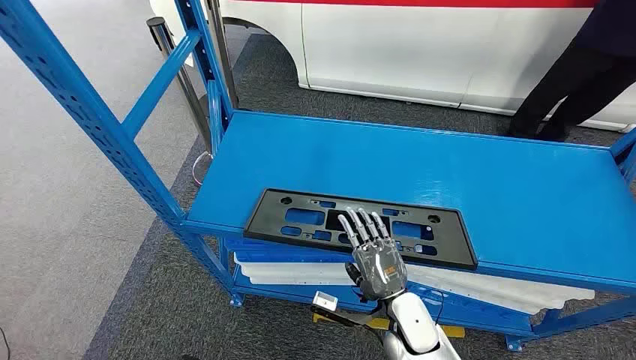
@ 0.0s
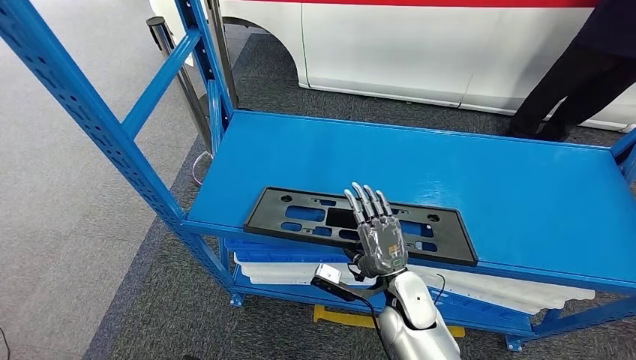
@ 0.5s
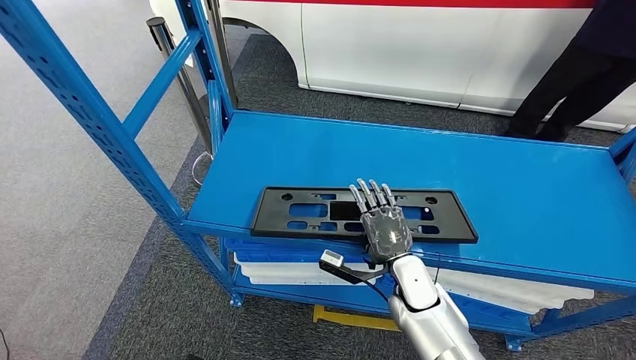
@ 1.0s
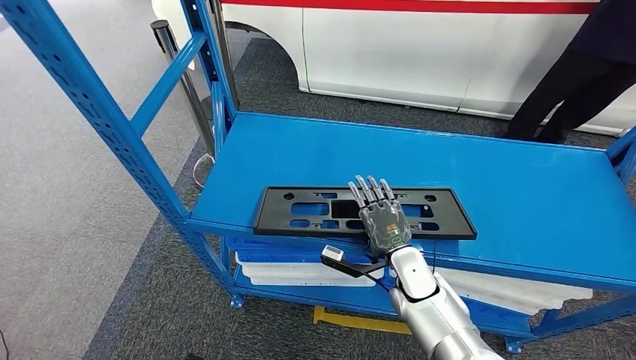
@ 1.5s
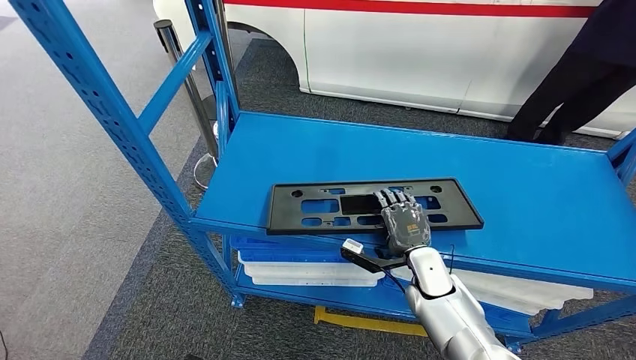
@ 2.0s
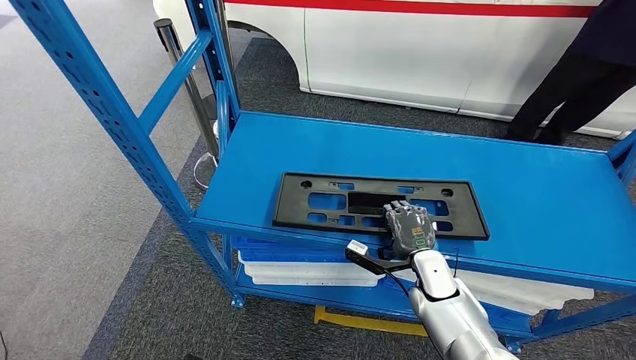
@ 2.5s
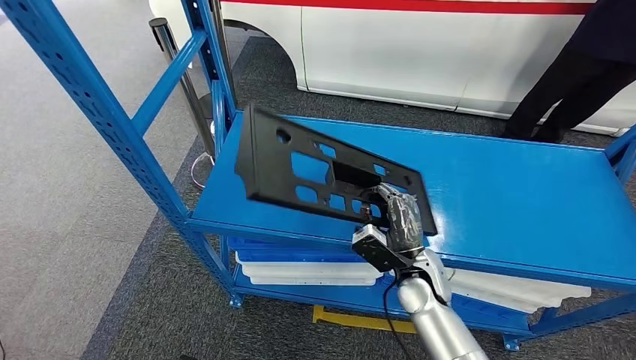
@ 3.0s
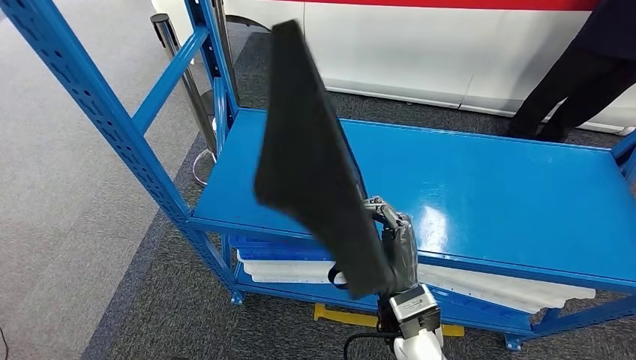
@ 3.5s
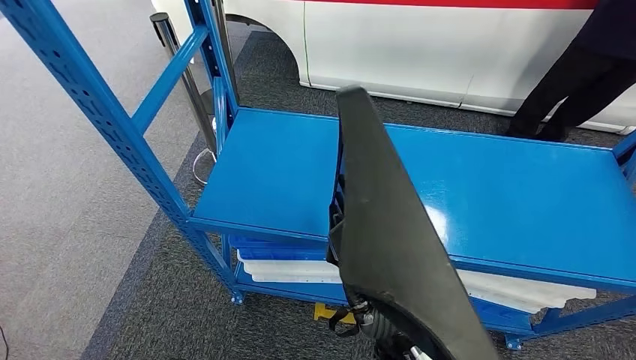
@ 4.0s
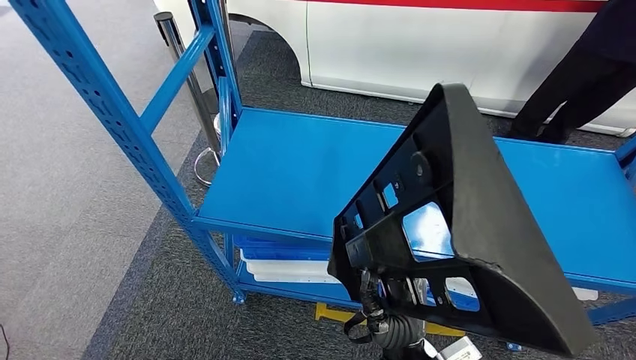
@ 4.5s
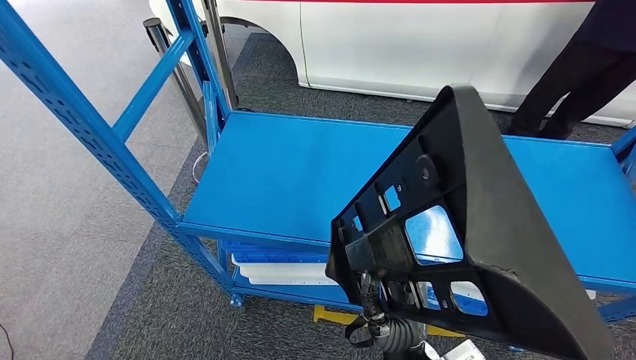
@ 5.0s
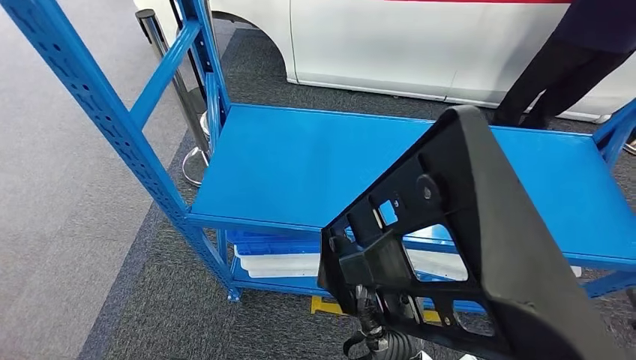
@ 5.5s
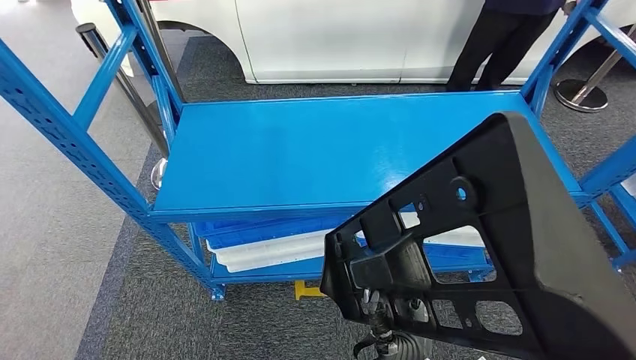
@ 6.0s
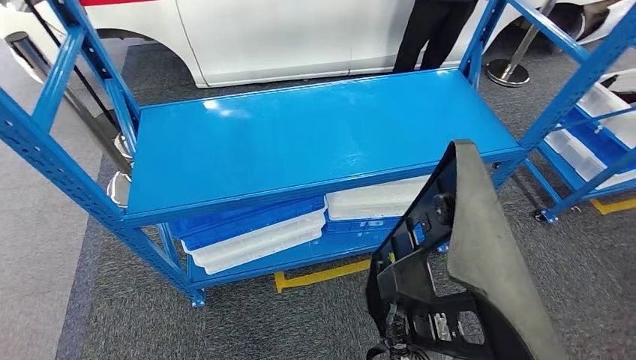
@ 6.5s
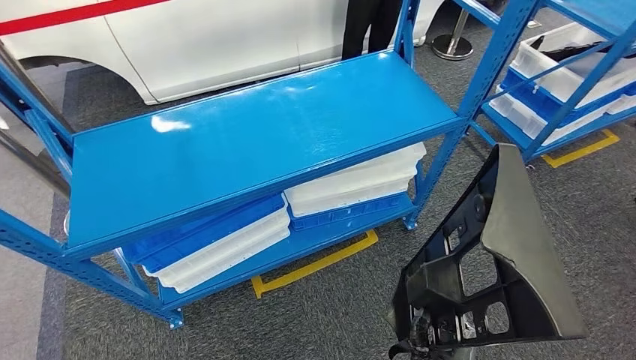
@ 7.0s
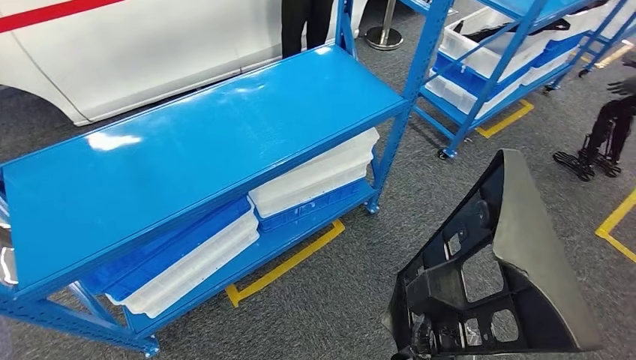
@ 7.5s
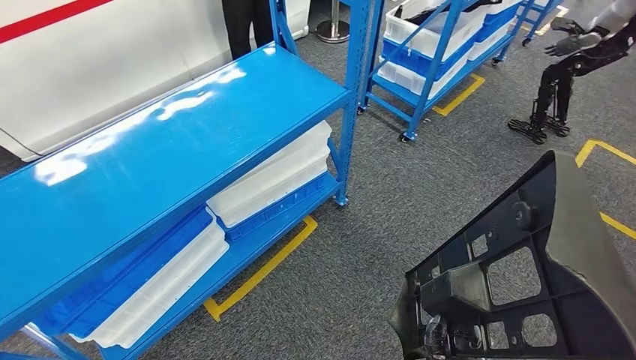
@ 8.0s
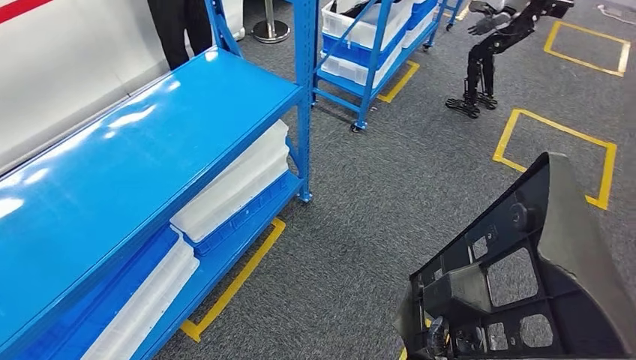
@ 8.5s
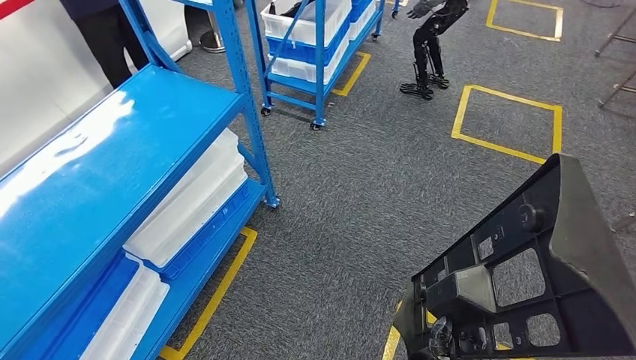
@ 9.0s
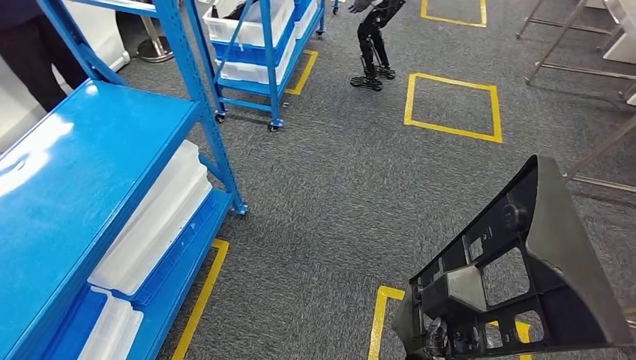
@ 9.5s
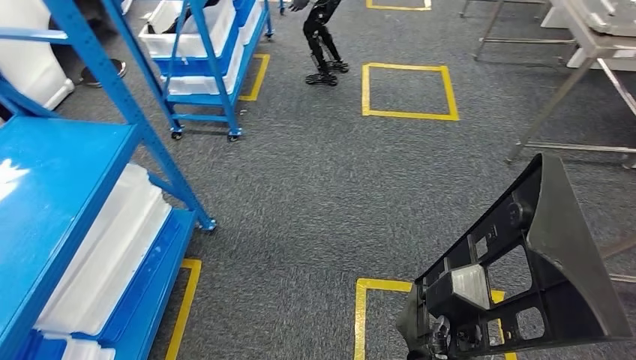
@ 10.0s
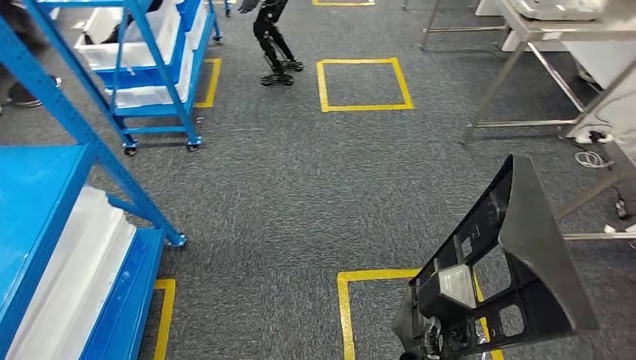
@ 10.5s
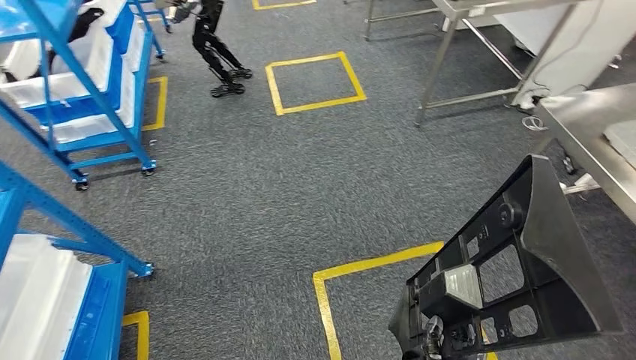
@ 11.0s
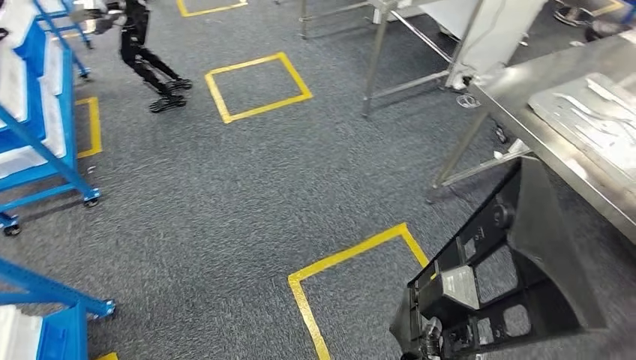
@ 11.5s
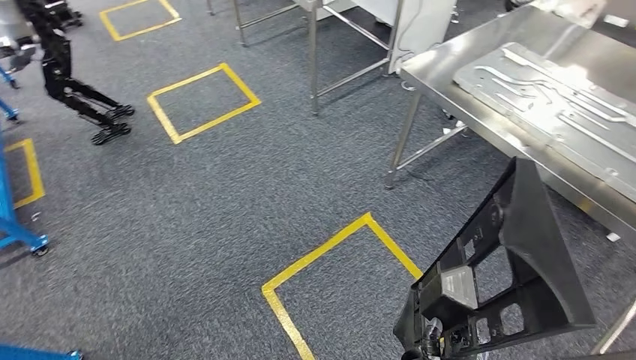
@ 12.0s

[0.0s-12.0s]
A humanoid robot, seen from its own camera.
Step, 0.0s to 5.0s: Pick up the large material from the shelf.

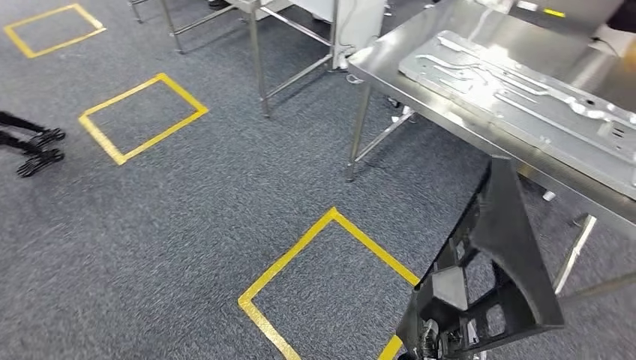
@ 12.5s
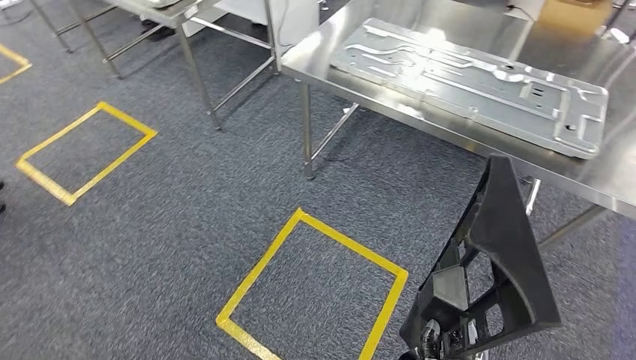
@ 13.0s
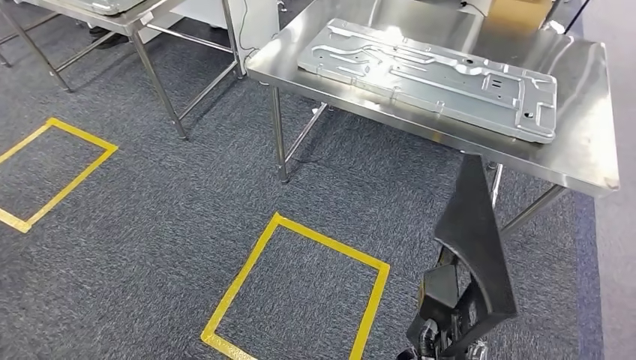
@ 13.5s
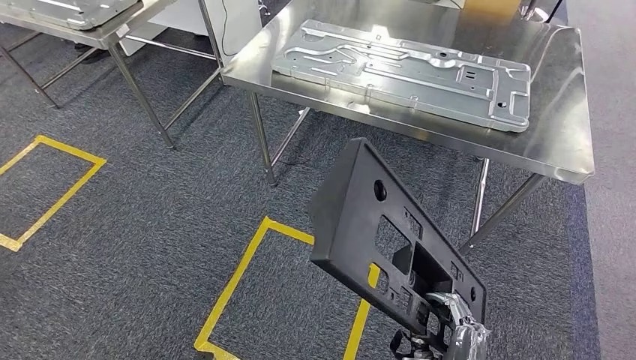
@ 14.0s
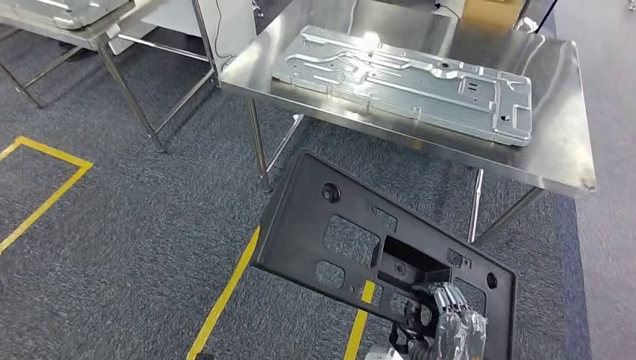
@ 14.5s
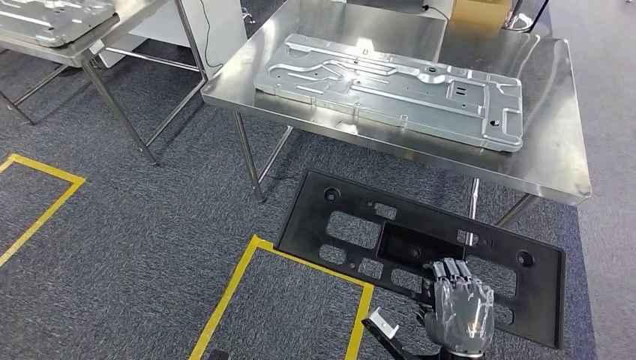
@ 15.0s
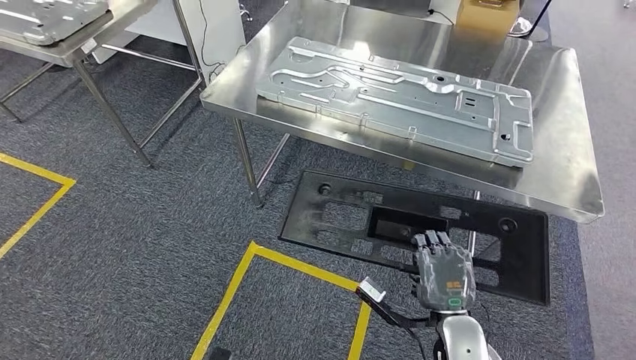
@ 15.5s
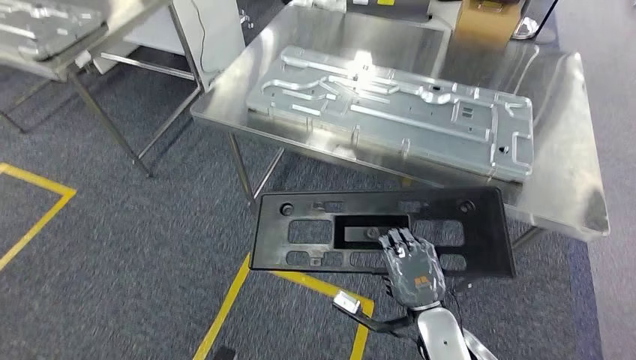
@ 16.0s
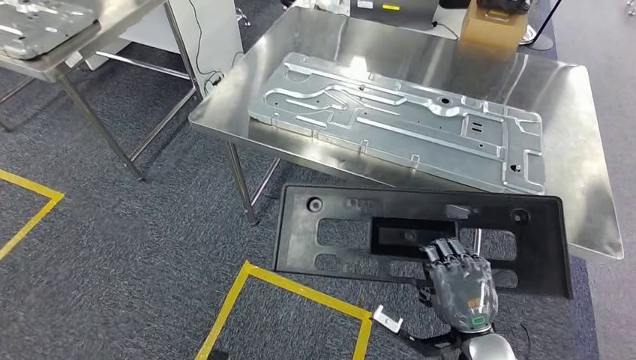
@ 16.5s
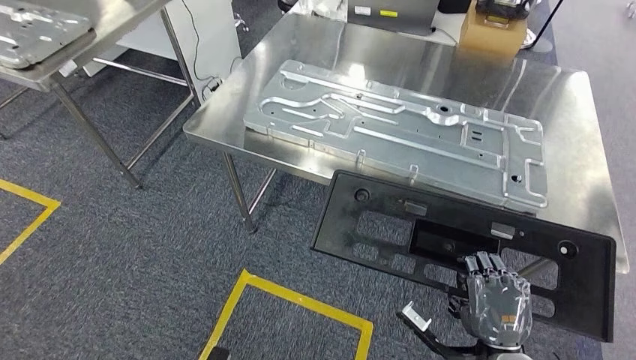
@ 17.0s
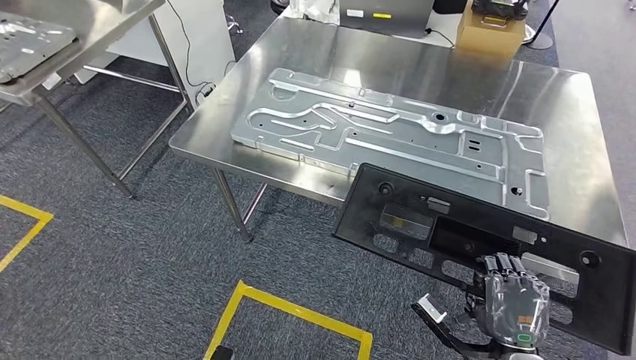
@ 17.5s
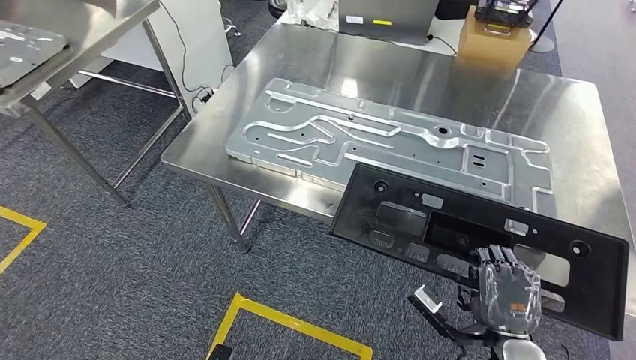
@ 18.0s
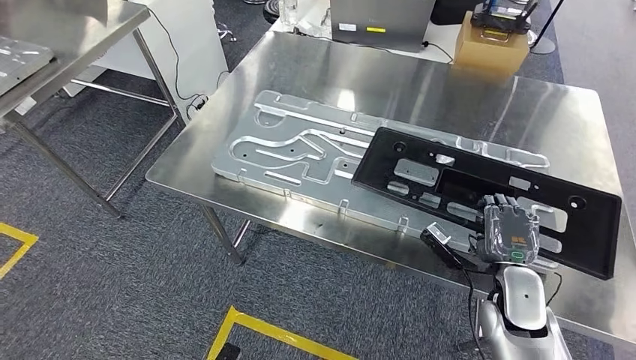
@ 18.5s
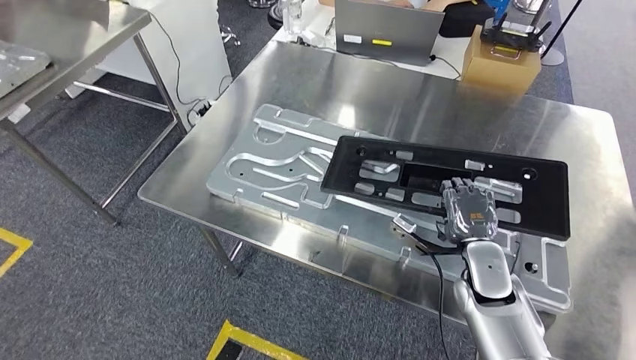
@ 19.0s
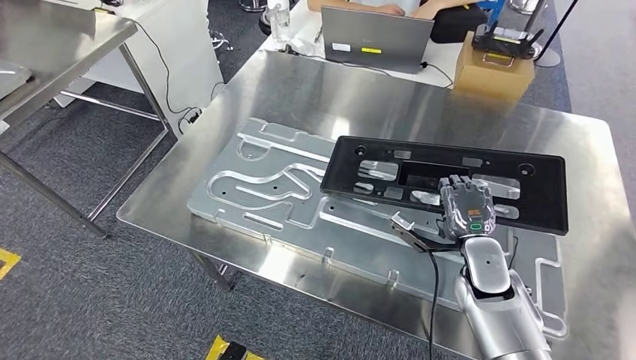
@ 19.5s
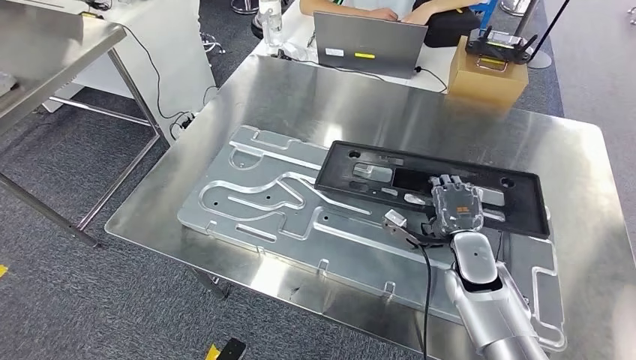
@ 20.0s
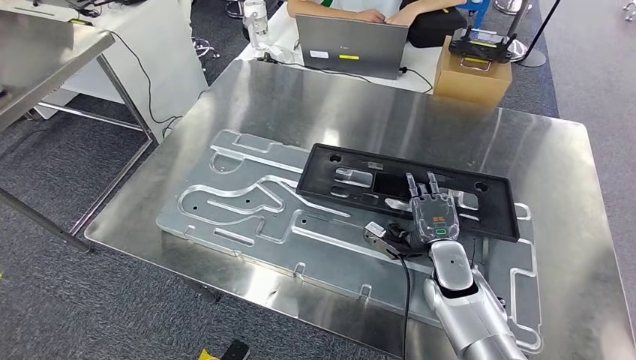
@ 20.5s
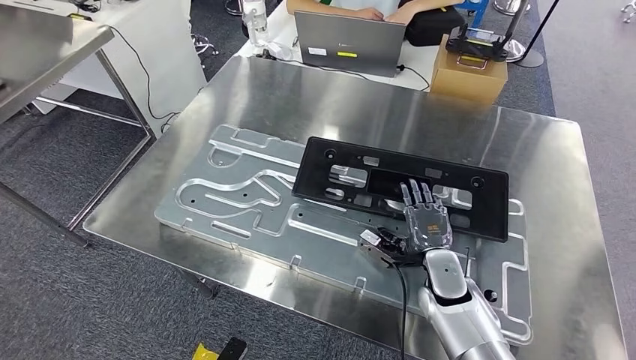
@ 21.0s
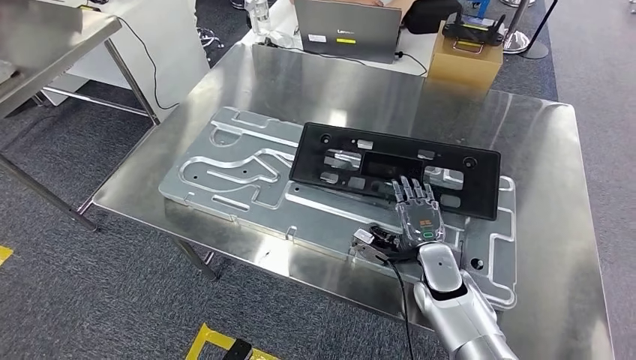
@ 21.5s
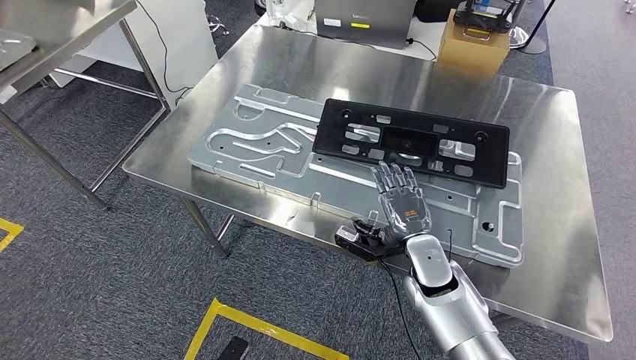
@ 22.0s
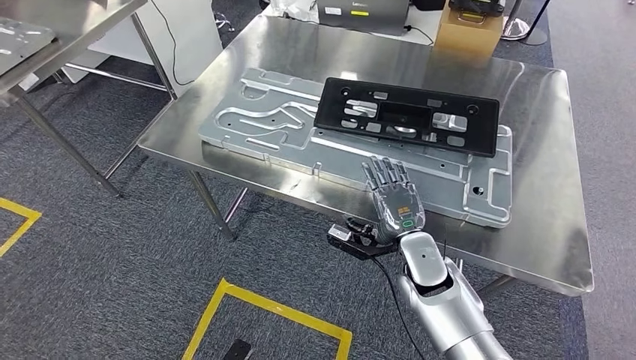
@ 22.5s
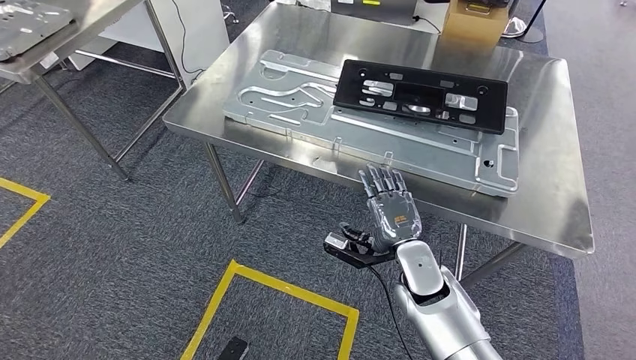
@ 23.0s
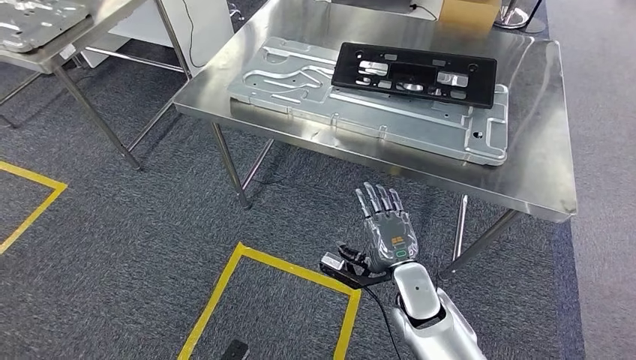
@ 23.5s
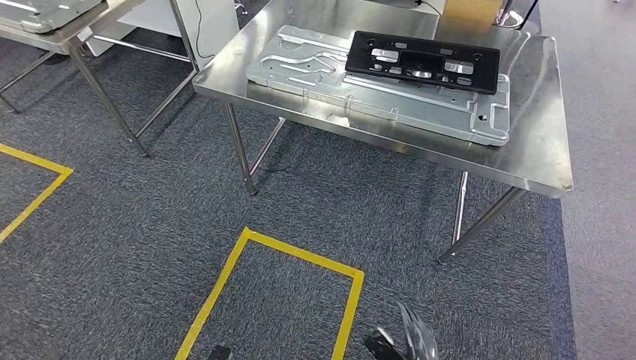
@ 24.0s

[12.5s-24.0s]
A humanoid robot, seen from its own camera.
Step, 12.5s to 16.5s: Move the large material to the workbench.
Step, 17.5s to 23.0s: Insert the large material into the corresponding slot on the workbench.
